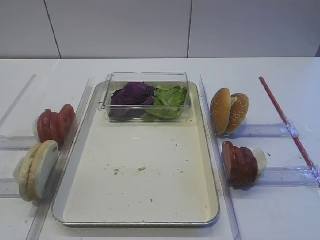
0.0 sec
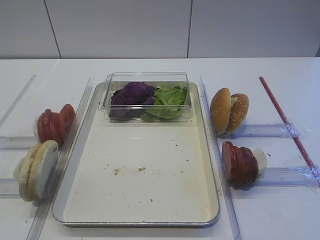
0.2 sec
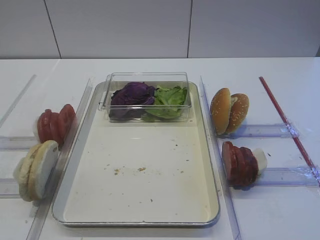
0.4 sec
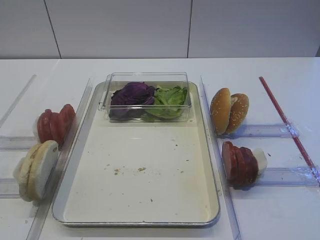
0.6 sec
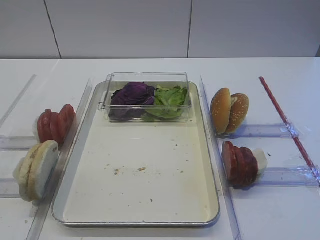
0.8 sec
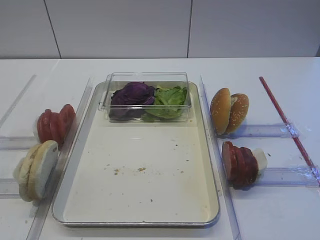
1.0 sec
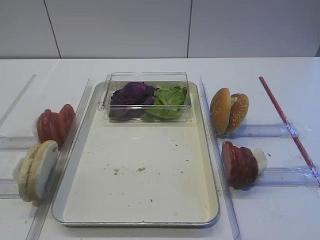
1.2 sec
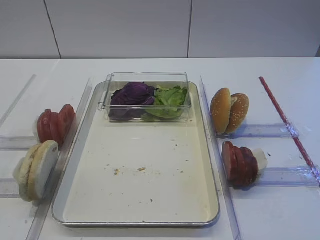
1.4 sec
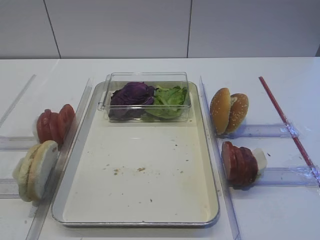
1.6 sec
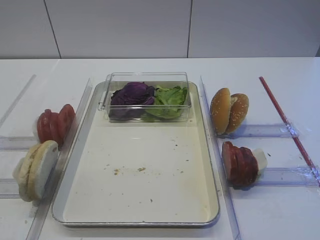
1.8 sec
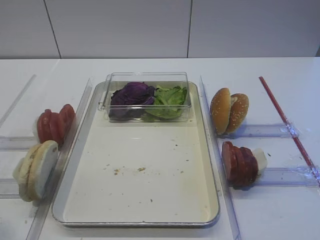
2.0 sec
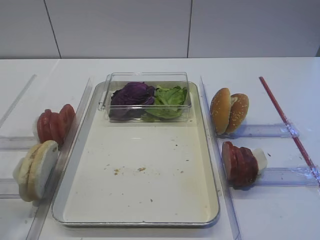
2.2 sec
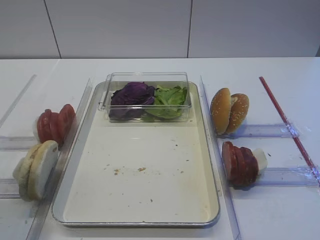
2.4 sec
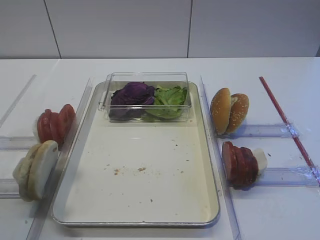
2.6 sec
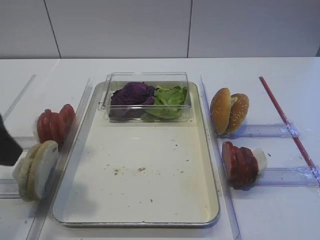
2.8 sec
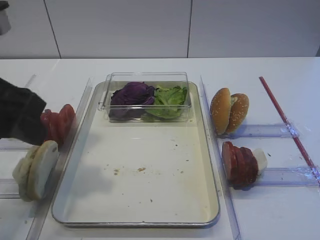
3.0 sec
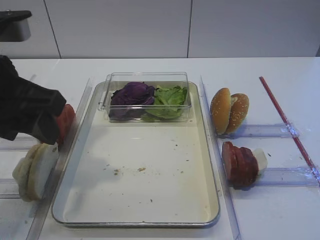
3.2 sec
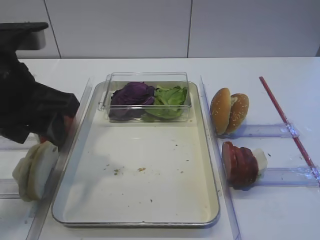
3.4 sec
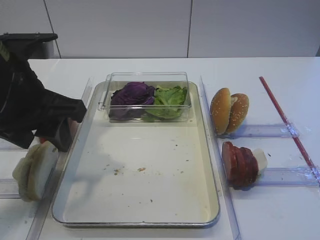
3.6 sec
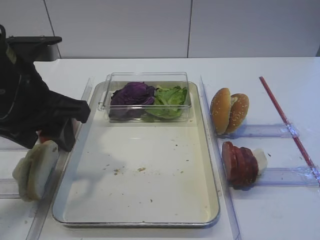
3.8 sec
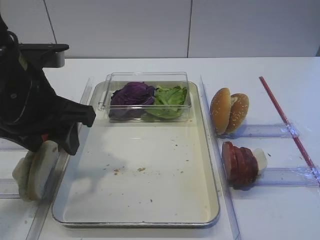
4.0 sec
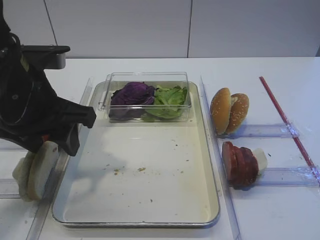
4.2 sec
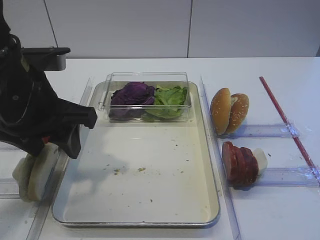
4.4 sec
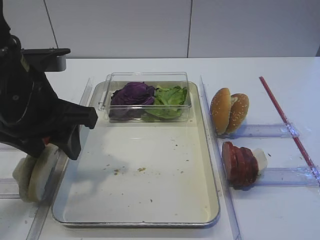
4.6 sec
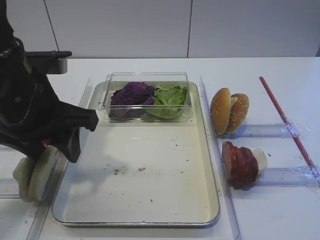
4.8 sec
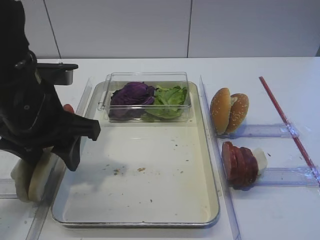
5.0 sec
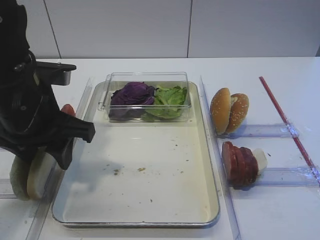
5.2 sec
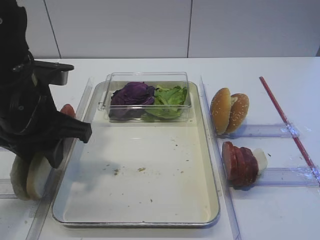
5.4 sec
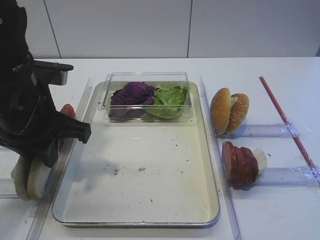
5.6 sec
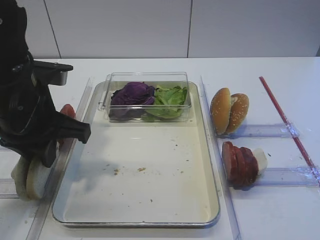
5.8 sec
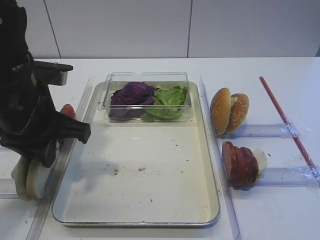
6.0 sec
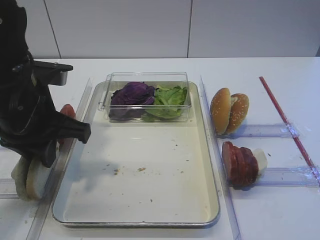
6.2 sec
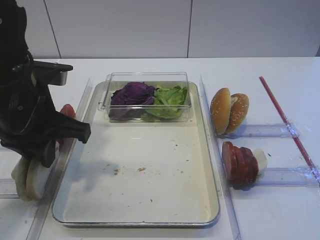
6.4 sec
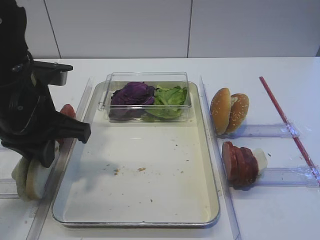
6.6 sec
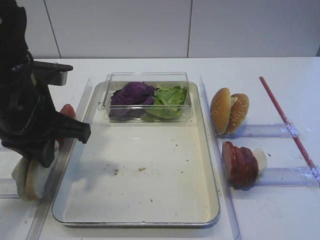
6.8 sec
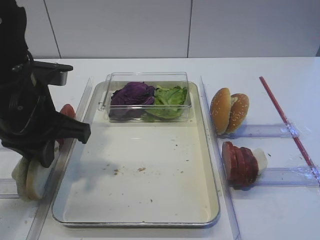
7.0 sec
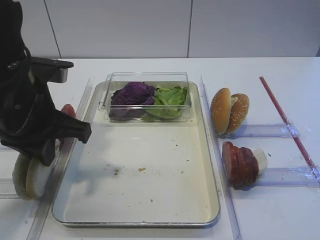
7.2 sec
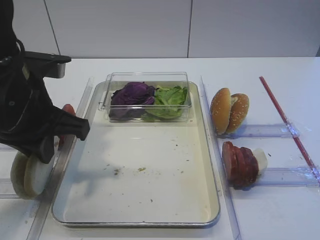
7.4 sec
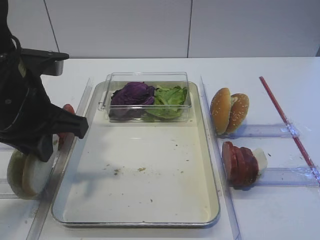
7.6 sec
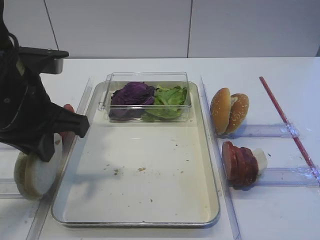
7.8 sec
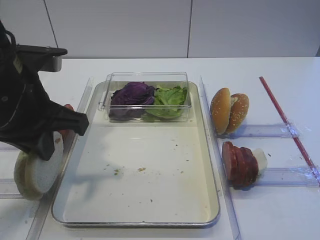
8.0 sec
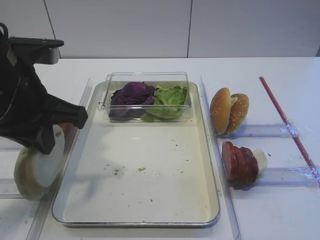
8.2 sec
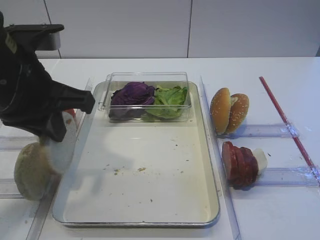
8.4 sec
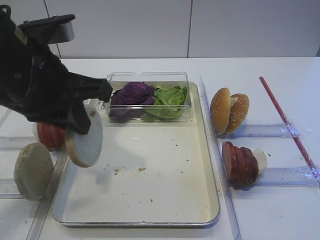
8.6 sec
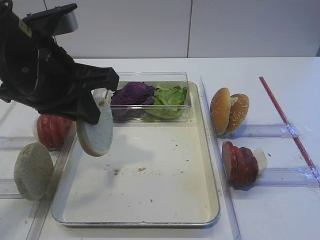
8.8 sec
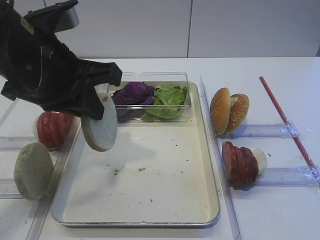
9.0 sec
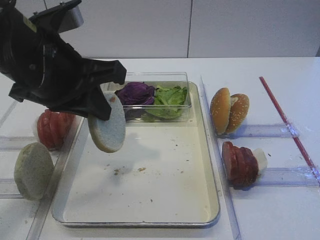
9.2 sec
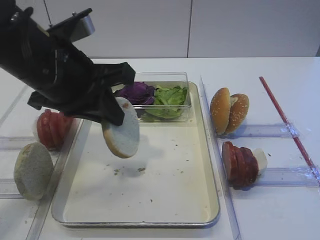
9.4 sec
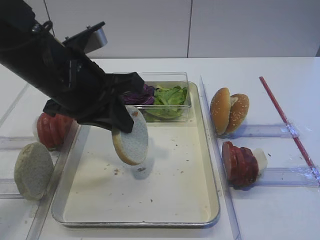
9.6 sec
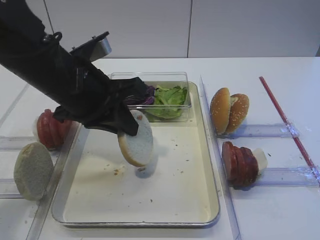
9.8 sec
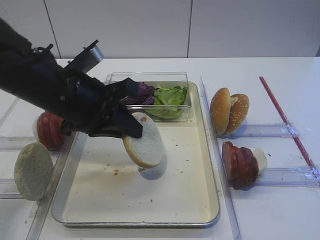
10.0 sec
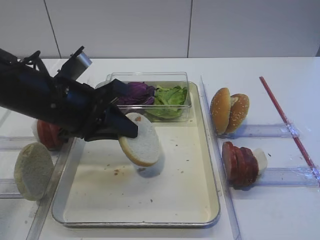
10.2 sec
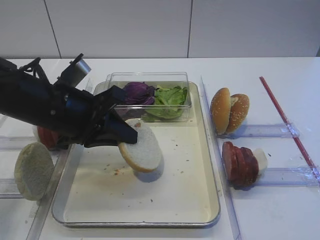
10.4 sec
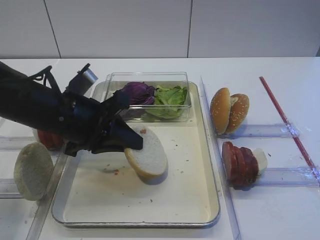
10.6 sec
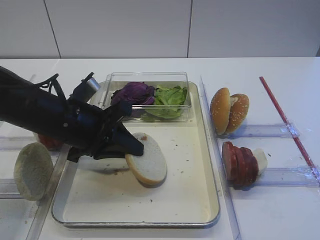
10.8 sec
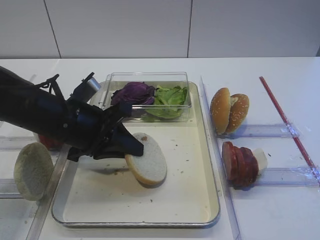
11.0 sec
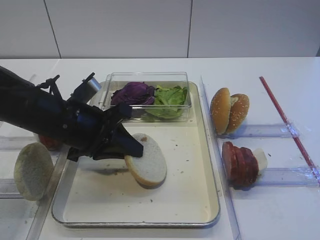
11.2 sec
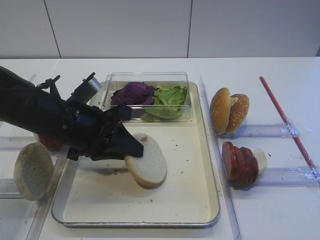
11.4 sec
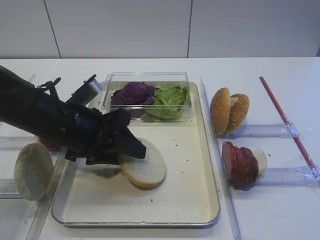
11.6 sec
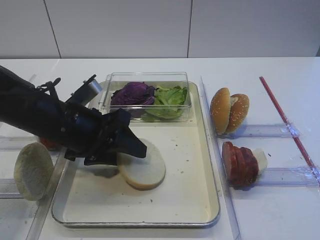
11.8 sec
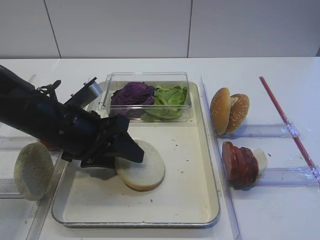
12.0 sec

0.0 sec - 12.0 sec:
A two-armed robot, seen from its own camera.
Step, 0.0 sec - 8.2 sec: Pick up the bread slice with the left gripper.
1.6 sec - 3.0 sec: The left gripper moves forward and to the right, about 20 cm.
3.0 sec - 4.4 sec: The left gripper heads forward and downward, covering approximately 10 cm.
4.4 sec - 6.0 sec: The left gripper closes its fingers.
6.0 sec - 7.6 sec: There are only small adjustments of the grippers.
9.0 sec - 10.4 sec: The left gripper moves downward, about 10 cm.
10.4 sec - 12.0 sec: The left gripper opens.

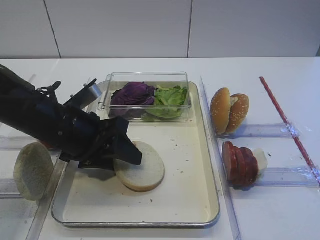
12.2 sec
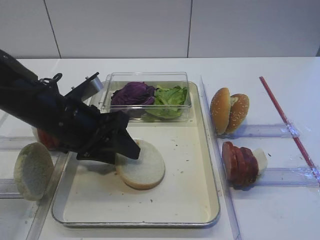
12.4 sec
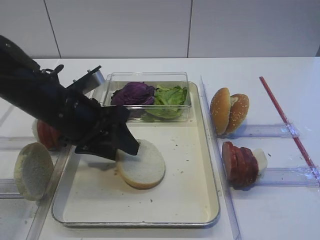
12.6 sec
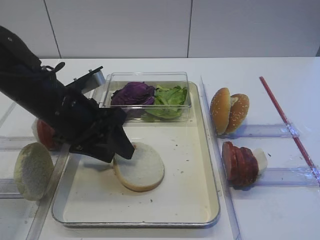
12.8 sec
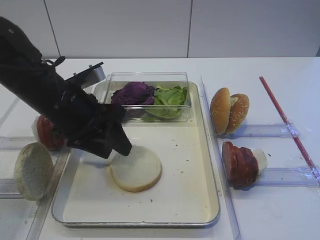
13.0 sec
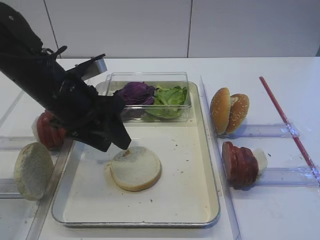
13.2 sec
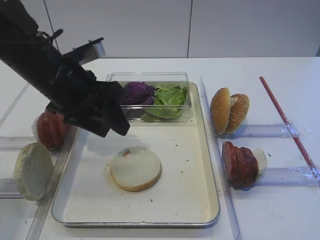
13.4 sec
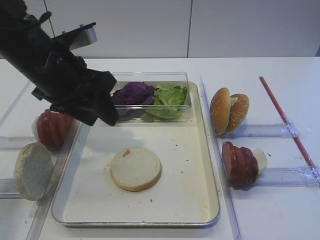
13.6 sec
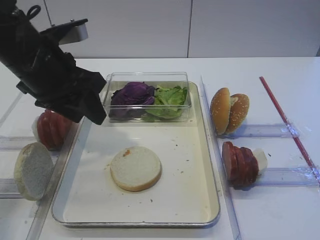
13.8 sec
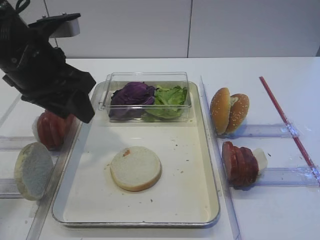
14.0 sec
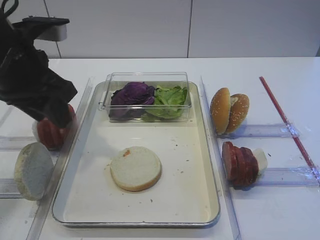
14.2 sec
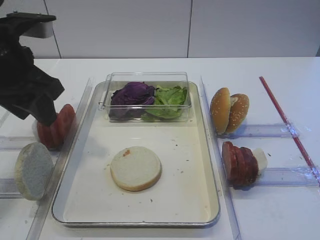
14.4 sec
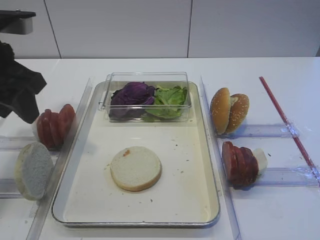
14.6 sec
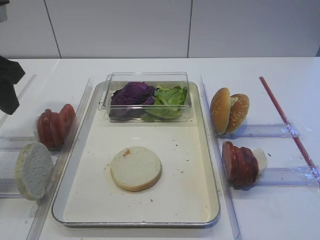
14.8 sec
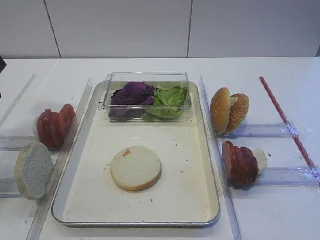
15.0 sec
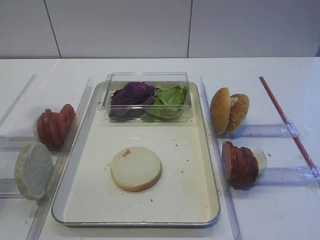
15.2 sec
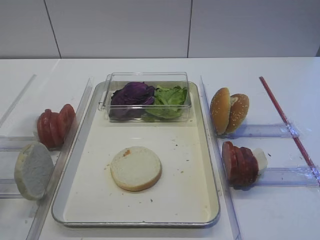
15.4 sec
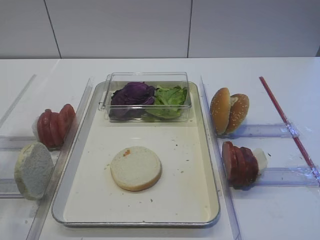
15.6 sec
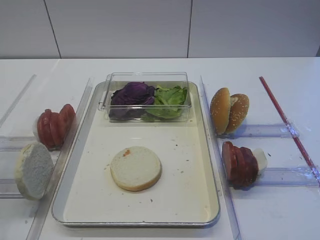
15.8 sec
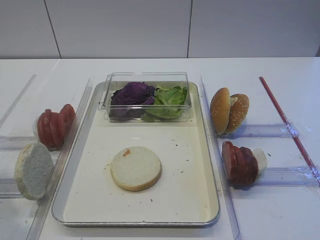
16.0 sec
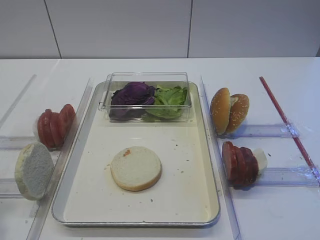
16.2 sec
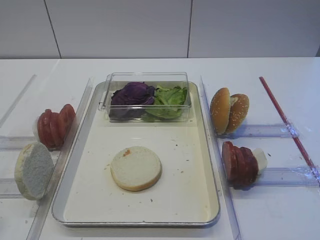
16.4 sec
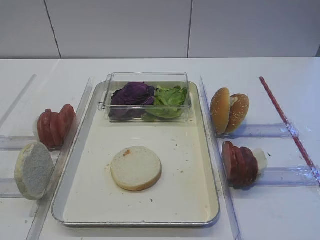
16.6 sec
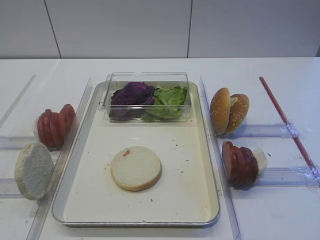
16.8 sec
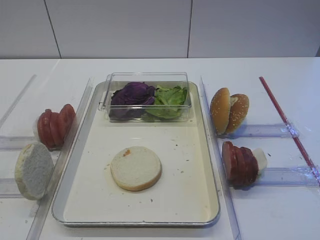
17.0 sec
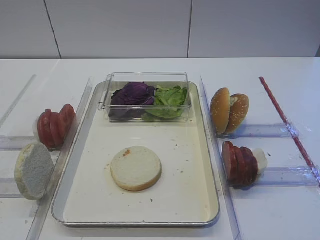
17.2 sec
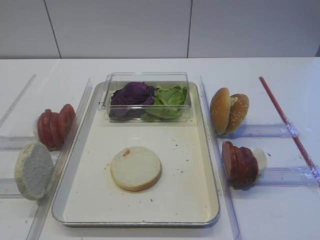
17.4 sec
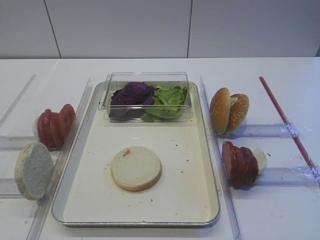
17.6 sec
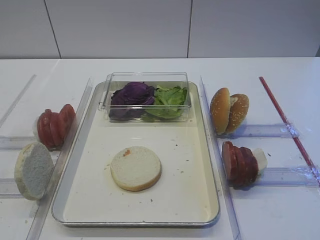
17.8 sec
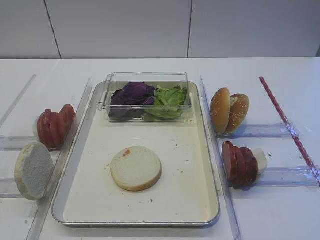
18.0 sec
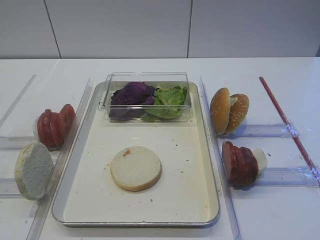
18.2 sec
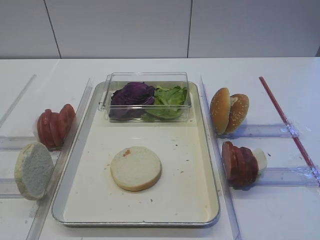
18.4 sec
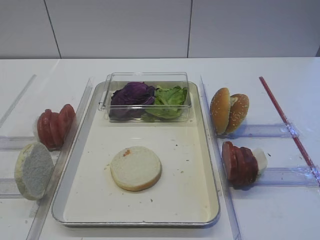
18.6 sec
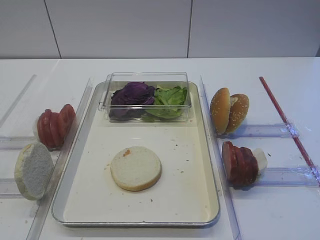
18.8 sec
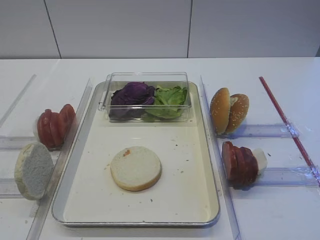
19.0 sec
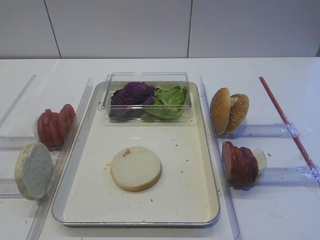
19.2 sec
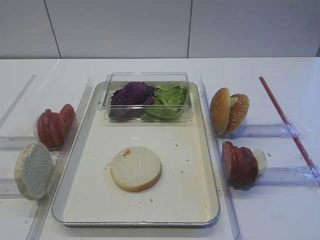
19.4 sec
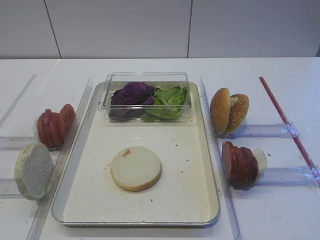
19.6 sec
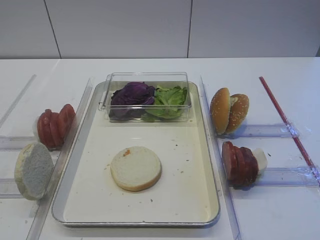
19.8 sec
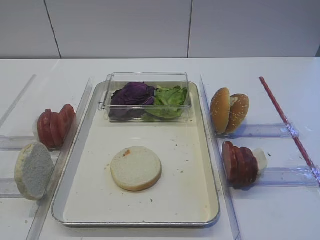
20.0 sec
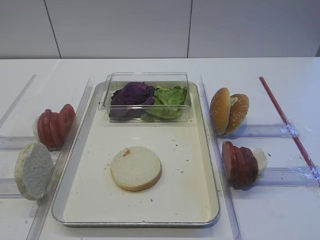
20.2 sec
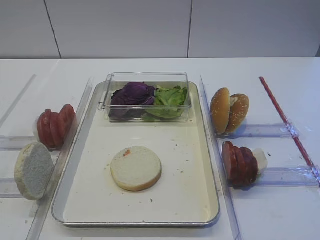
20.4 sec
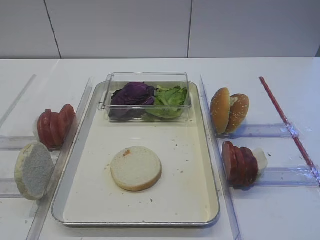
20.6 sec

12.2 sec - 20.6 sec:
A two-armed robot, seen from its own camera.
12.2 sec - 13.6 sec: The left gripper heads upward, covering approximately 10 cm.
13.6 sec - 15.0 sec: The left gripper shifts about 15 cm to the left and upward.
15.0 sec - 16.4 sec: The left gripper goes approximately 20 cm backward.
17.8 sec - 20.6 sec: The two grippers keep their place.

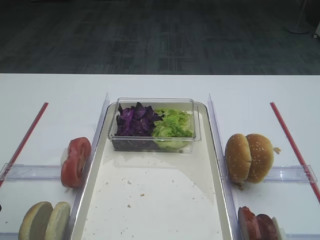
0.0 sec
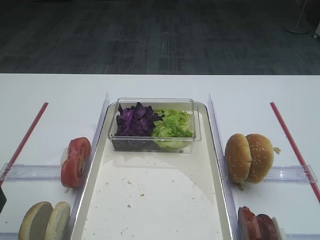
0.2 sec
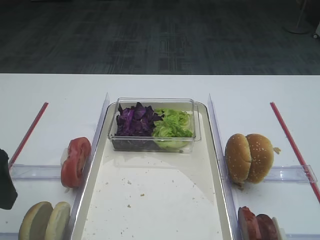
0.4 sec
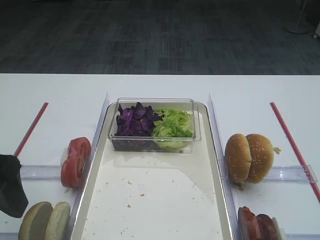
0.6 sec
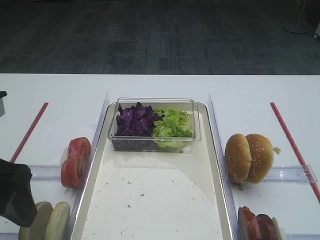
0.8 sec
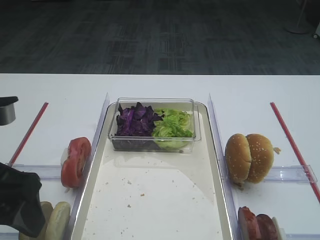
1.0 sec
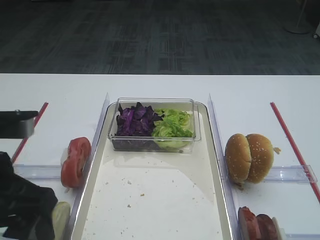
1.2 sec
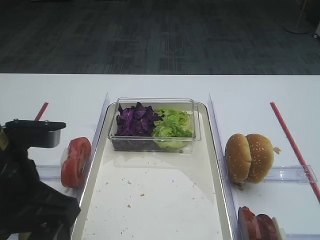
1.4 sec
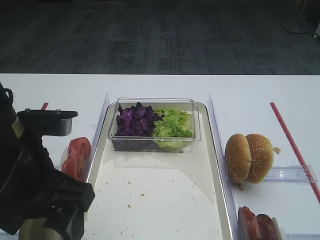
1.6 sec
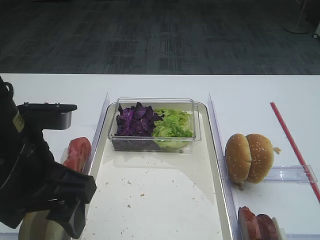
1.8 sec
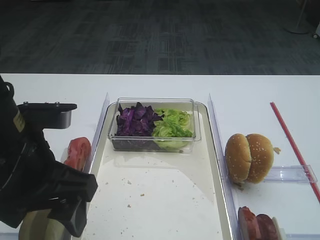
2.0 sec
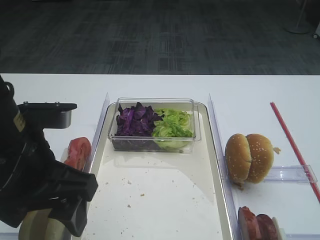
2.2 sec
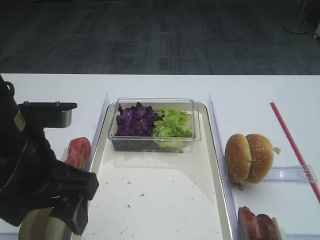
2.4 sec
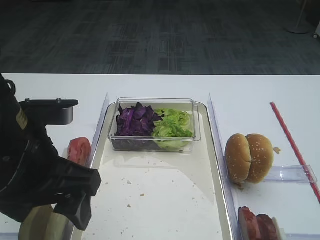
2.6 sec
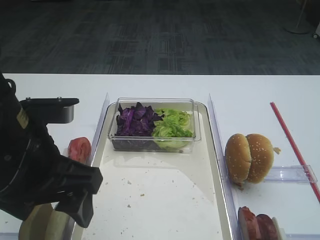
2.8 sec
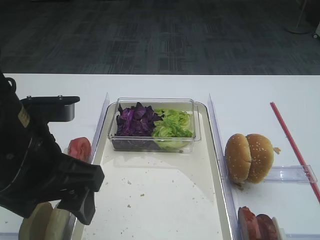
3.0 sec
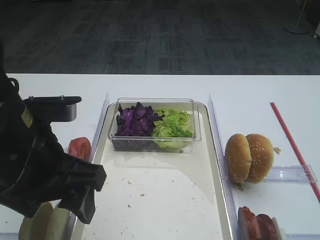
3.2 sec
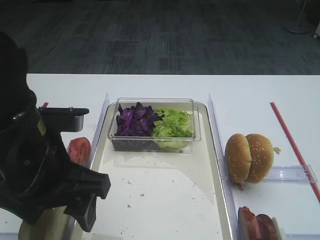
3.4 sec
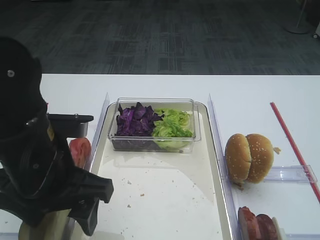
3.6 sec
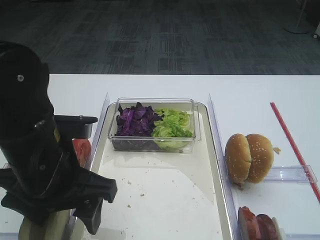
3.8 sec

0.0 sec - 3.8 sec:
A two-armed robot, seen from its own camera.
0.0 sec - 1.2 sec: The left gripper shifts approximately 10 cm to the right.
1.2 sec - 2.6 sec: The grippers move only a little.
2.6 sec - 3.8 sec: The grippers stay close to where they were, moving slightly.
